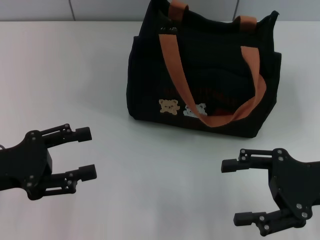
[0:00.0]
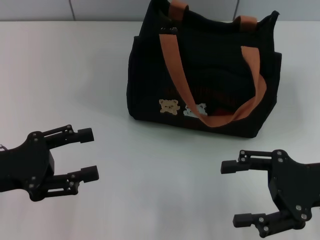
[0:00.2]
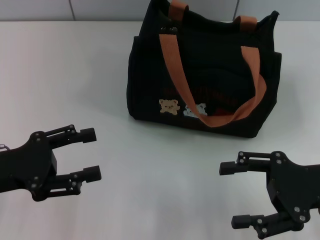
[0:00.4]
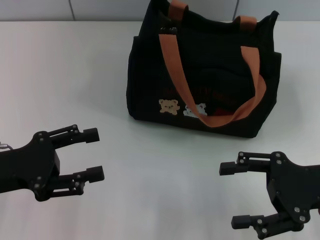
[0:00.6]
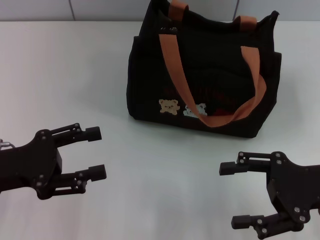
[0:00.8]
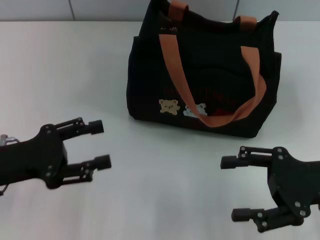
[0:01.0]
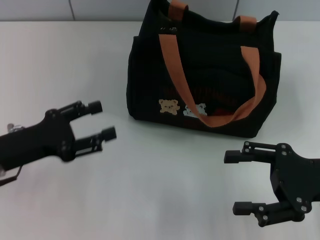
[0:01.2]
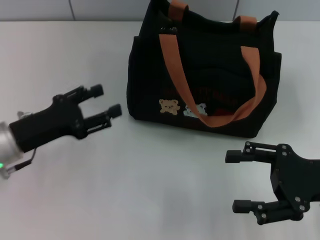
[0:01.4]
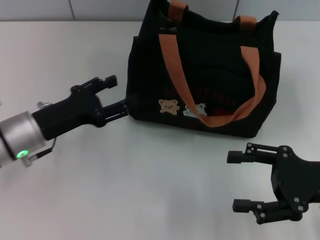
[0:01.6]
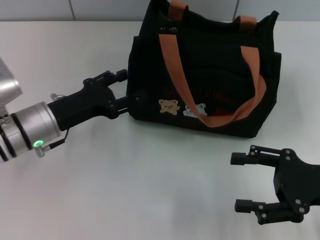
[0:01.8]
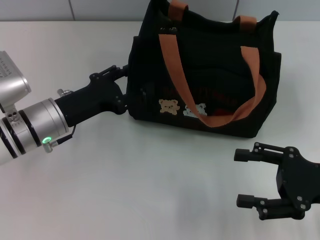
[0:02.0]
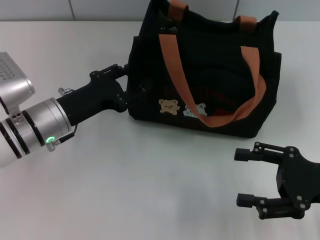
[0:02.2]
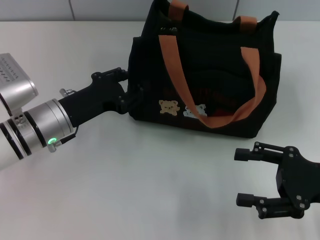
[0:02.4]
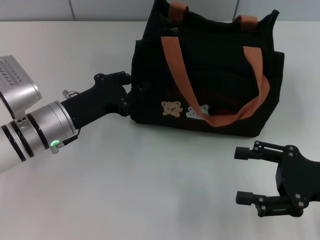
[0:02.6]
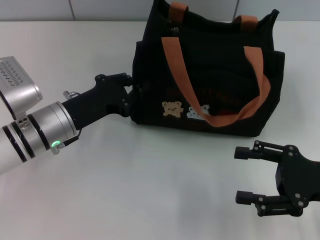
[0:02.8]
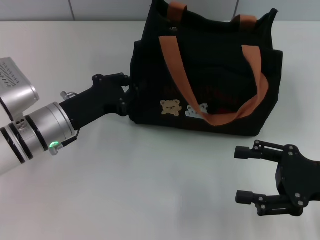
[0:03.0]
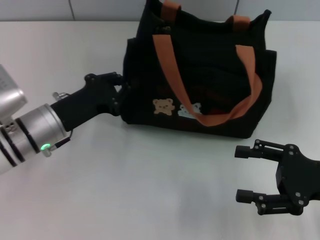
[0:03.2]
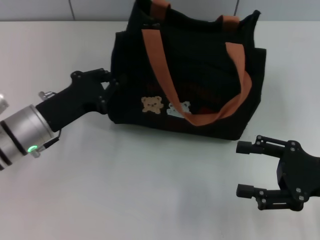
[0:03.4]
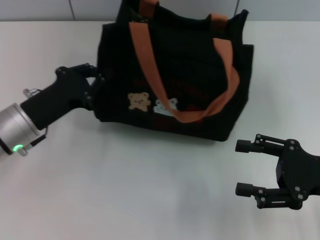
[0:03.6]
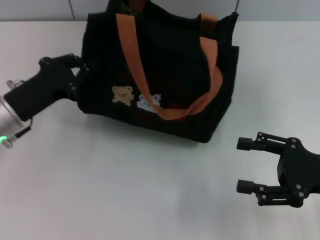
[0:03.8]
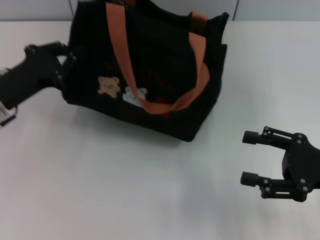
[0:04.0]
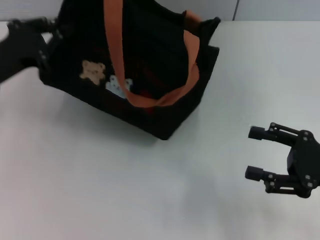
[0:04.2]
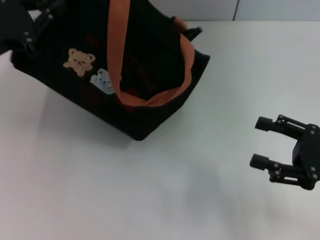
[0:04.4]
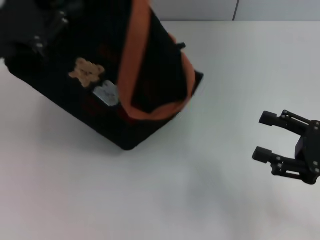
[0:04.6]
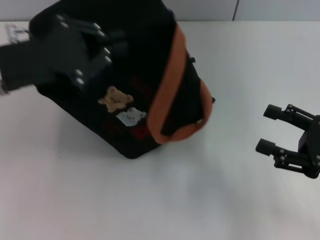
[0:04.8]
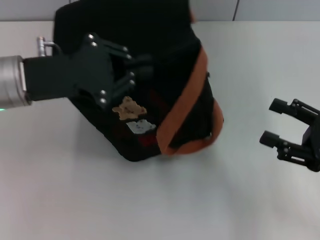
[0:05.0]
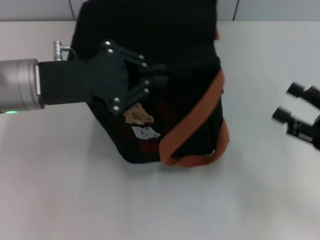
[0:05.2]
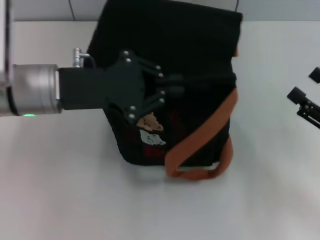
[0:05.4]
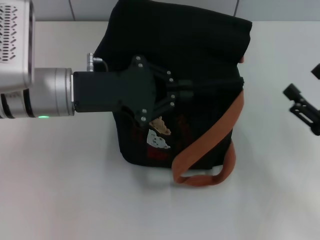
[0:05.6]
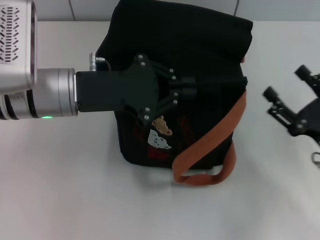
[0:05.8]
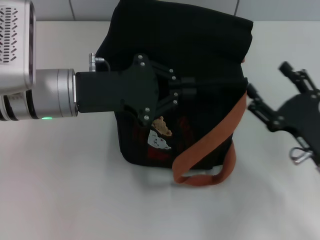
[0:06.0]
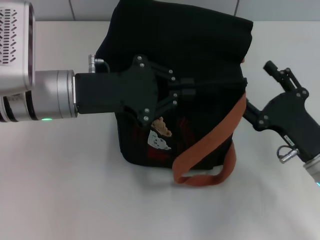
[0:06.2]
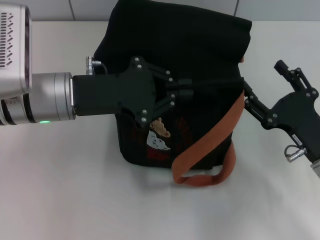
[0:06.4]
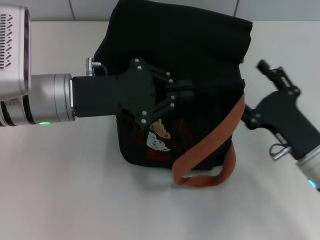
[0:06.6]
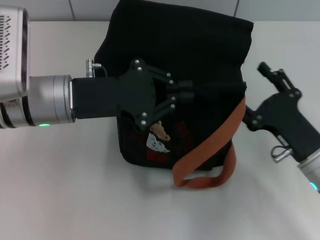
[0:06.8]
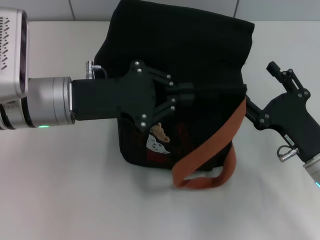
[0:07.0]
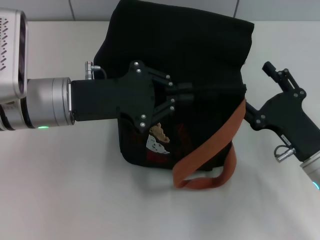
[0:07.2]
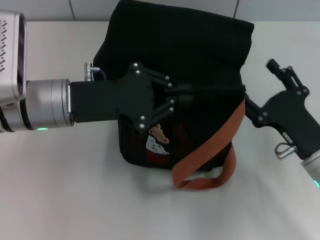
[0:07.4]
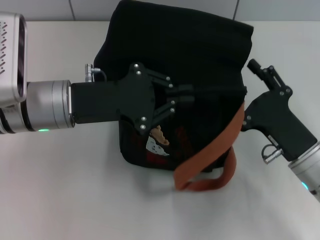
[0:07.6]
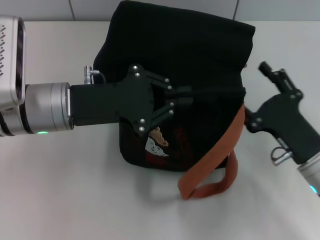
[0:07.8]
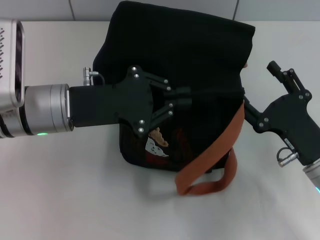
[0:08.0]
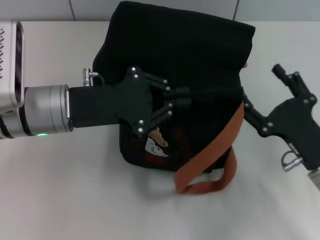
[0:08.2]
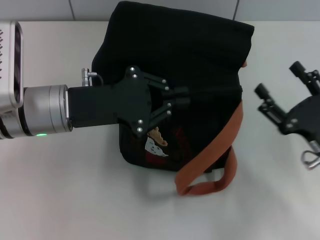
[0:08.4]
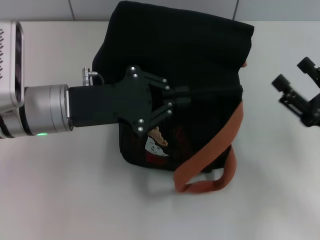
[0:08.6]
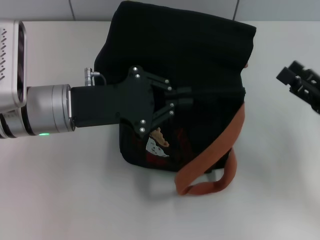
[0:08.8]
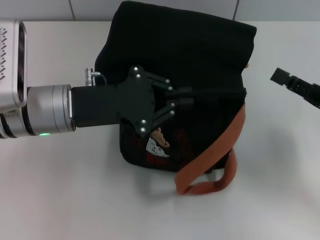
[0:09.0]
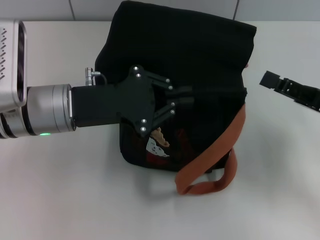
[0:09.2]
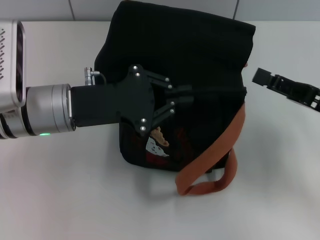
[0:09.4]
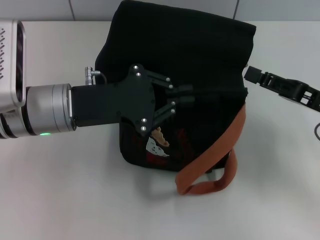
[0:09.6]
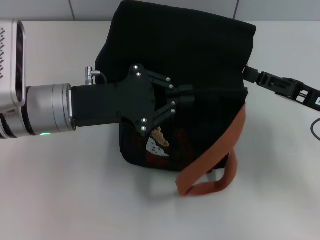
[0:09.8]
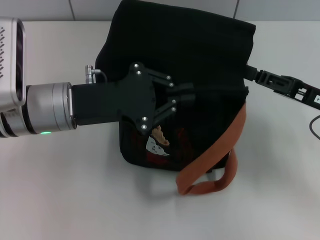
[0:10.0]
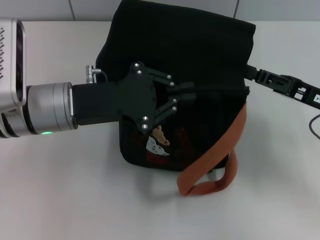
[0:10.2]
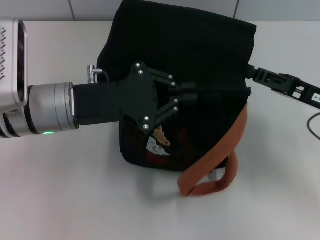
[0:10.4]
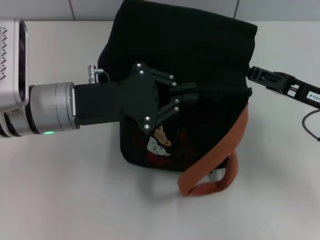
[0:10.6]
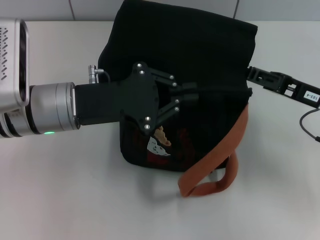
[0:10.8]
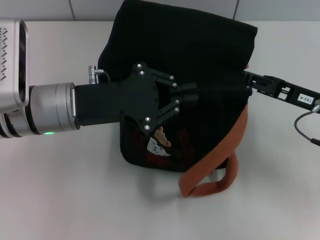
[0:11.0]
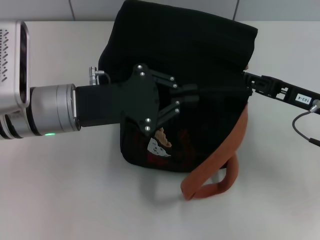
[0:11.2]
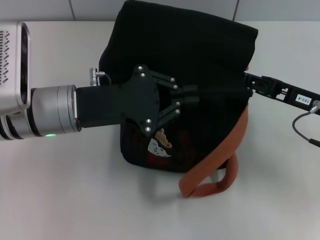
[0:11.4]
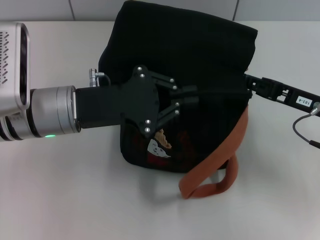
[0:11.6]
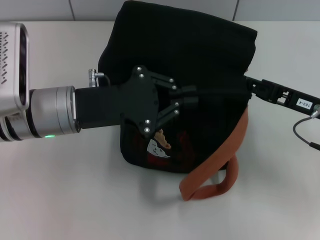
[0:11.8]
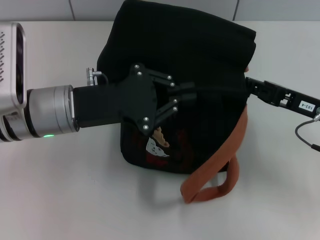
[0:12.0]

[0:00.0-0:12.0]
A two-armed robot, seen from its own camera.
0:00.0 to 0:01.6: The left gripper moves forward and to the right, about 10 cm.
0:01.6 to 0:03.0: The left gripper closes.
0:03.0 to 0:04.4: The left gripper goes about 15 cm upward and to the left.
0:04.4 to 0:06.0: The right gripper heads to the left, covering about 5 cm, while the left gripper heads to the right, covering approximately 15 cm.
0:07.6 to 0:09.0: The right gripper is displaced to the right by approximately 10 cm.
0:09.0 to 0:10.4: The right gripper closes.
0:10.4 to 0:12.0: The grippers stay close to where they were, moving slightly.

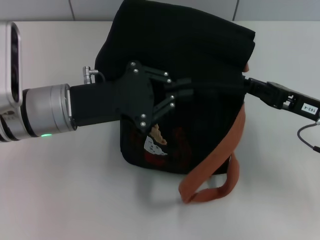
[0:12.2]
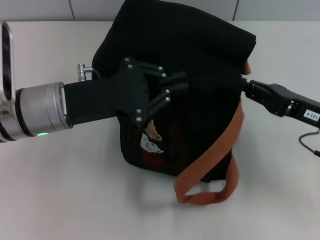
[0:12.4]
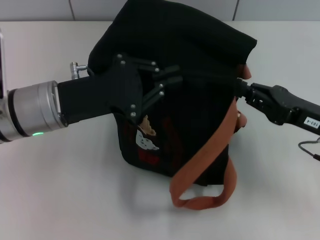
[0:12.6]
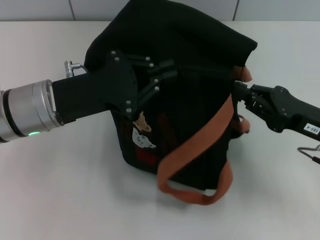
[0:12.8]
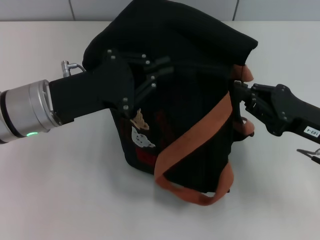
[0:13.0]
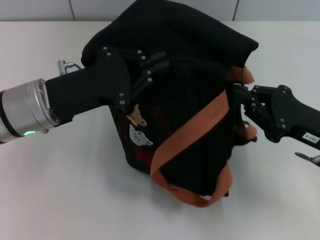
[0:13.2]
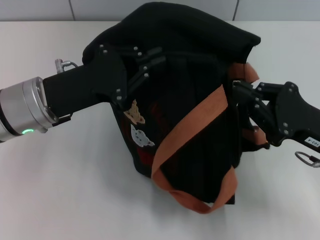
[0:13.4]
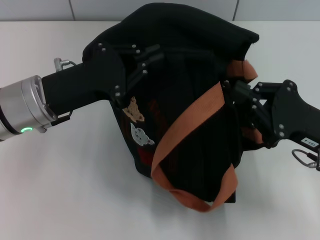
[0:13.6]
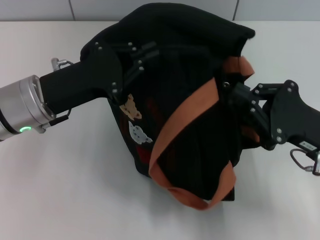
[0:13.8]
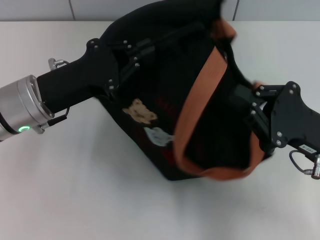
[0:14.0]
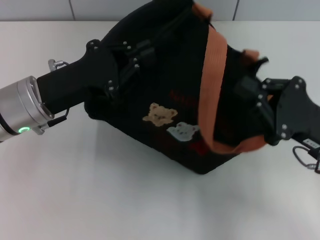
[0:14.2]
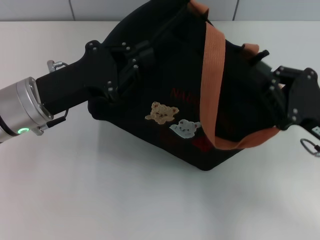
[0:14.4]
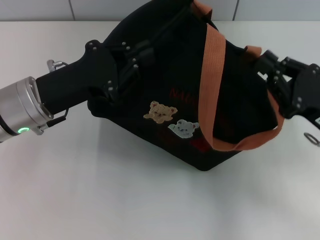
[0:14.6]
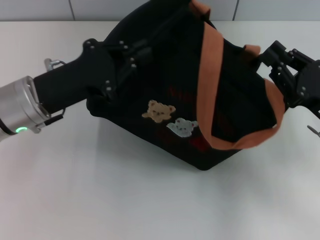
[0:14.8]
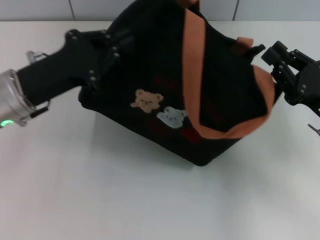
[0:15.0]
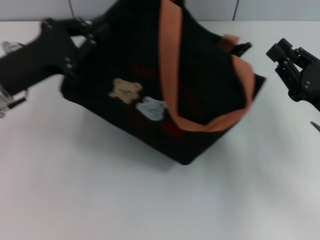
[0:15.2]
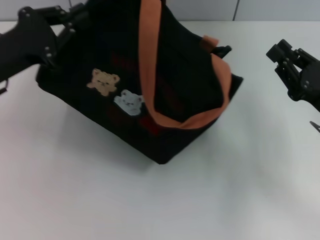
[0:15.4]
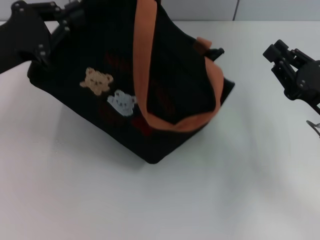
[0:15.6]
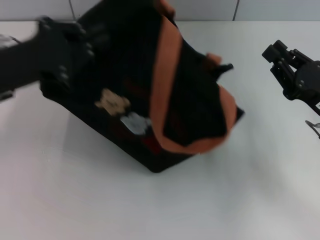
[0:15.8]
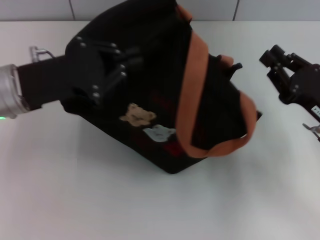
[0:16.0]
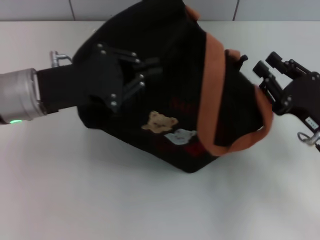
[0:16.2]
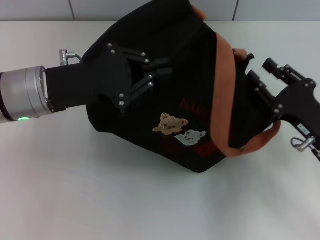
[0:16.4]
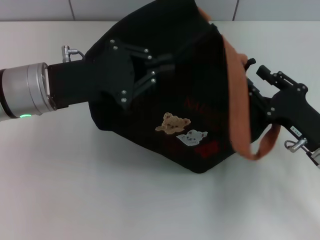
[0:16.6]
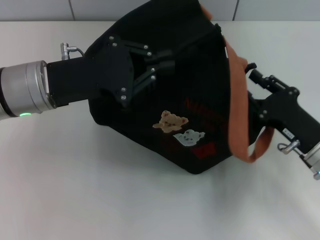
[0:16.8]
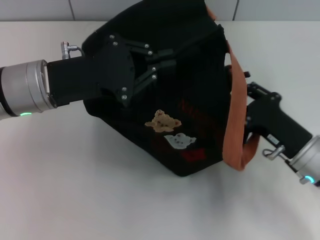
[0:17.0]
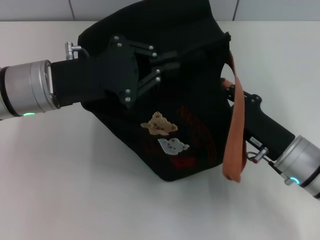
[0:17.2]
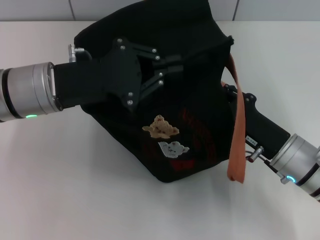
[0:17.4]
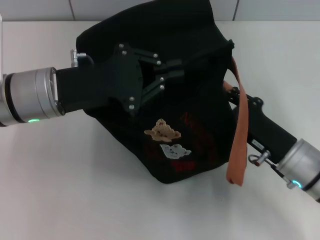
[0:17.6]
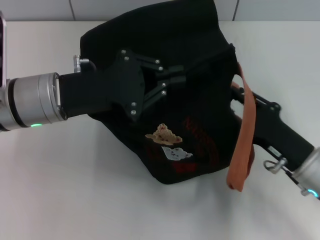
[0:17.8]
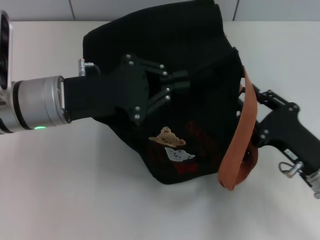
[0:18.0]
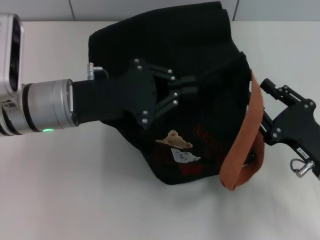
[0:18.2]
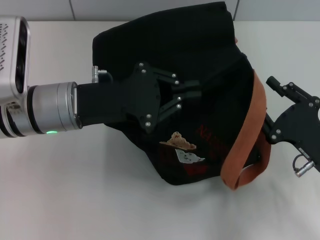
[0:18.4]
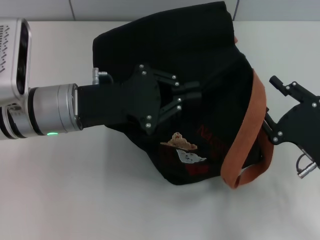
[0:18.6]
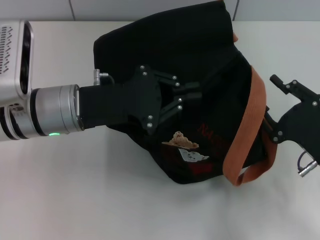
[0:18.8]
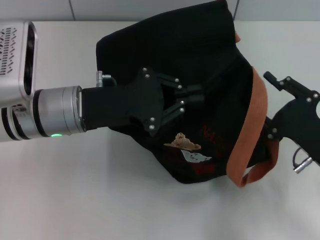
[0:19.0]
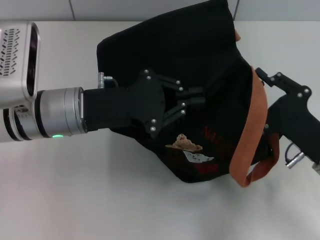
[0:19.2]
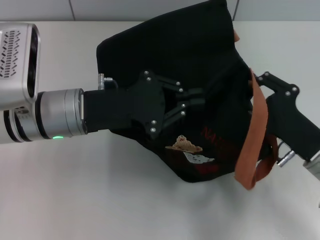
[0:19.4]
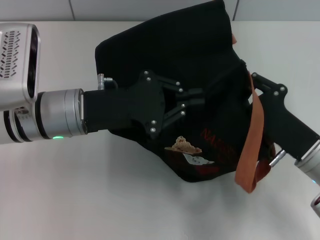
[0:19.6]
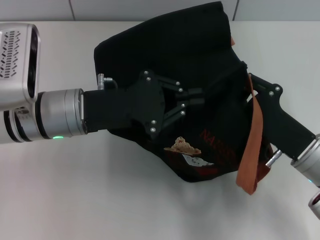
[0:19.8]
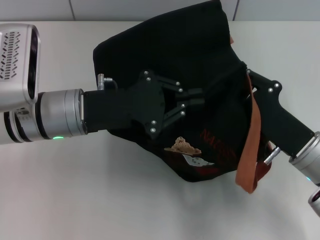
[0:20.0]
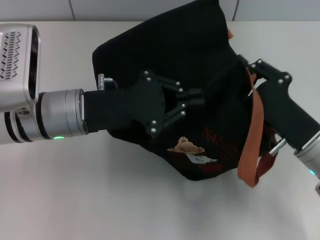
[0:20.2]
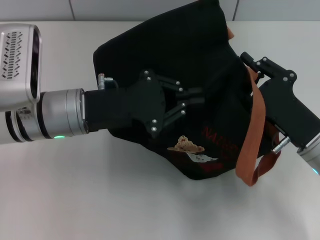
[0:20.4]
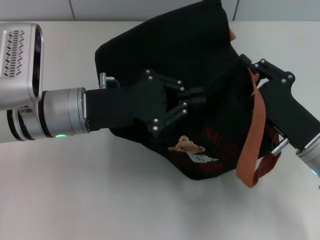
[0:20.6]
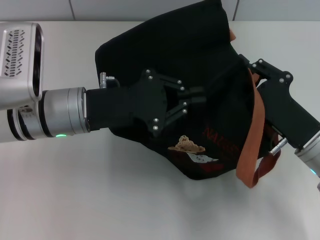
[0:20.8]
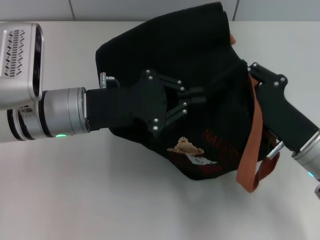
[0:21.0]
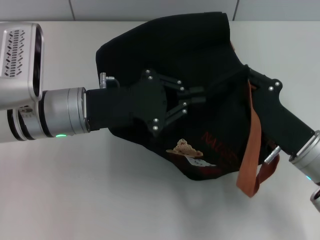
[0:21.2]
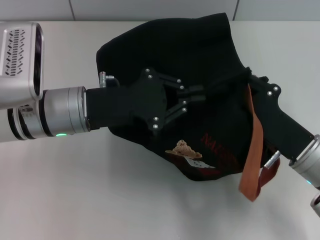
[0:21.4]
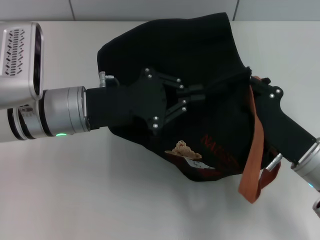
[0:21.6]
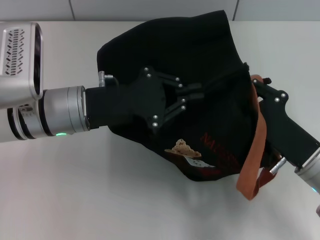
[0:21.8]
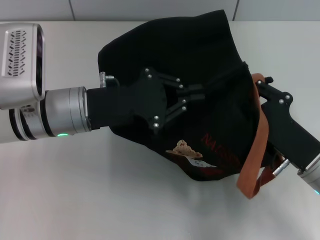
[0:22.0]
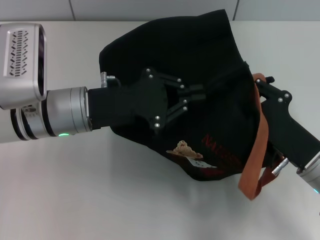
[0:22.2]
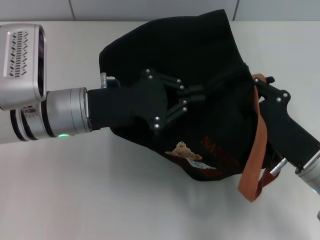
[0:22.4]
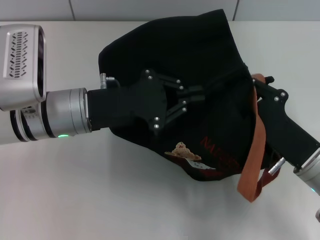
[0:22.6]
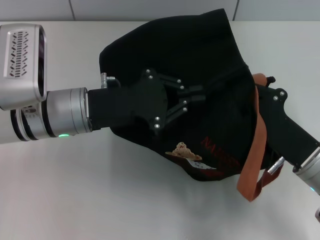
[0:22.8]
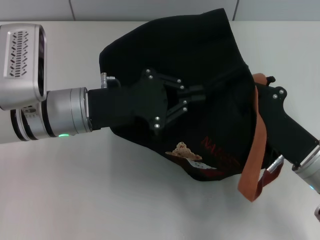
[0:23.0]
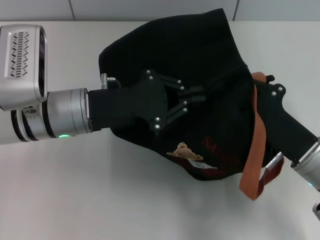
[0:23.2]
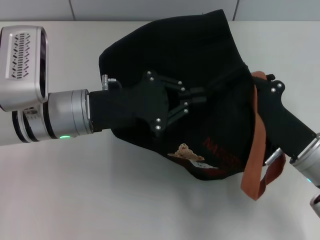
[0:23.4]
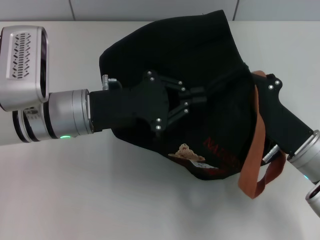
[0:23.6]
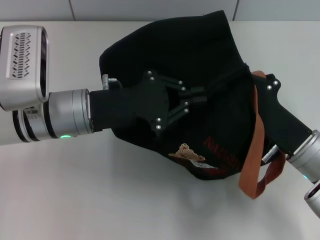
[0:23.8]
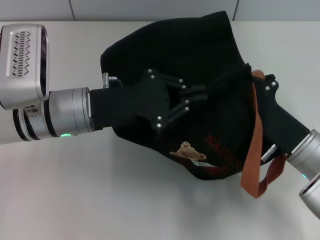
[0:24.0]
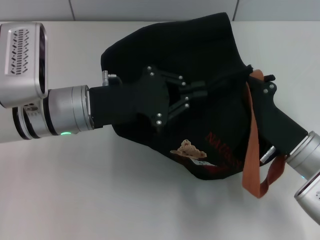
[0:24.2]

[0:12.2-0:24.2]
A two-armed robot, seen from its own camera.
0:13.8 to 0:15.2: The left gripper travels to the left by approximately 5 cm.
0:15.2 to 0:16.6: The left gripper heads to the right, covering approximately 5 cm.
0:19.8 to 0:24.2: The grippers stay close to where they were, moving slightly.
